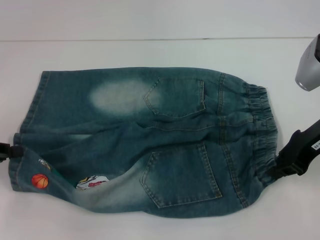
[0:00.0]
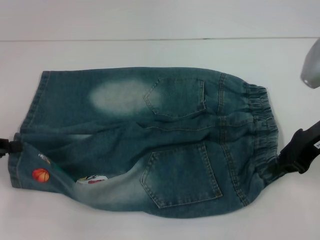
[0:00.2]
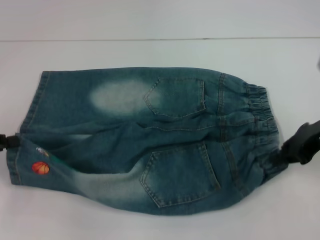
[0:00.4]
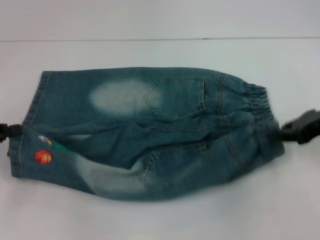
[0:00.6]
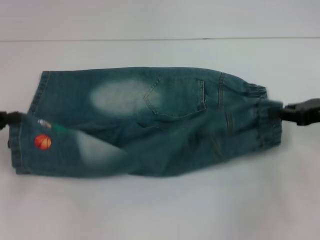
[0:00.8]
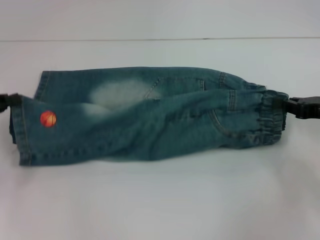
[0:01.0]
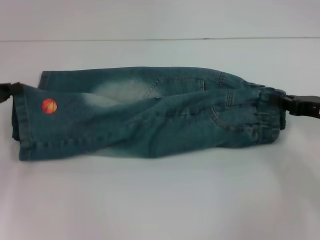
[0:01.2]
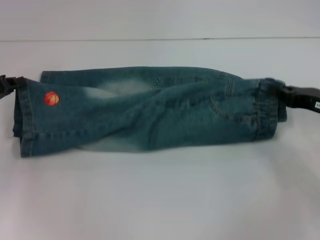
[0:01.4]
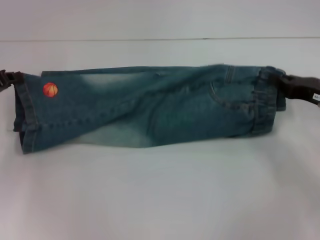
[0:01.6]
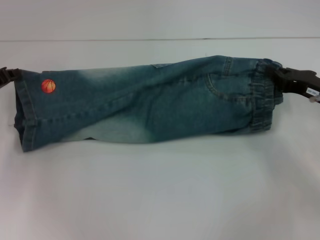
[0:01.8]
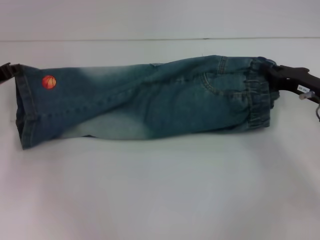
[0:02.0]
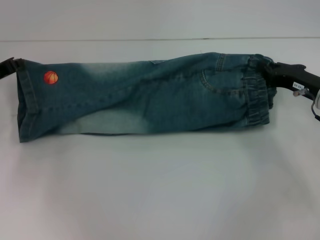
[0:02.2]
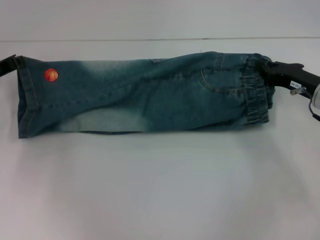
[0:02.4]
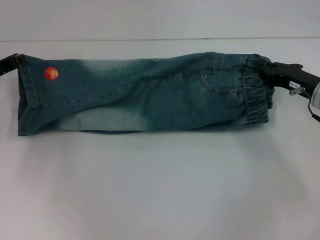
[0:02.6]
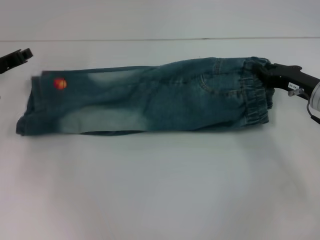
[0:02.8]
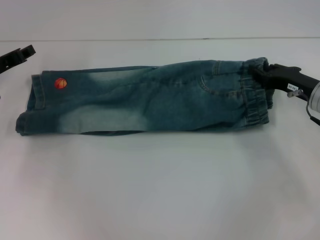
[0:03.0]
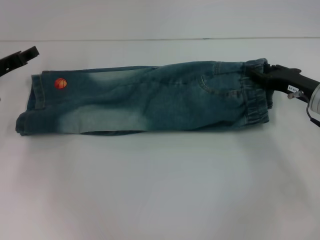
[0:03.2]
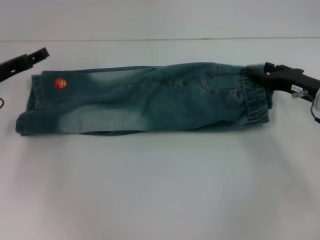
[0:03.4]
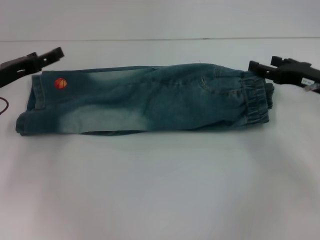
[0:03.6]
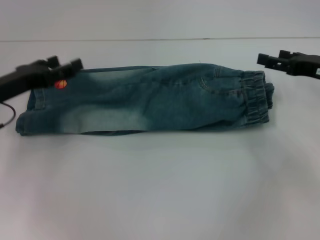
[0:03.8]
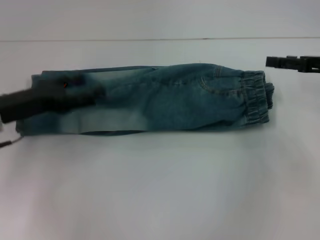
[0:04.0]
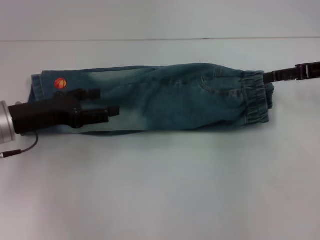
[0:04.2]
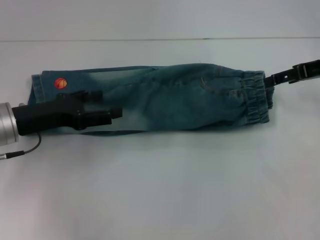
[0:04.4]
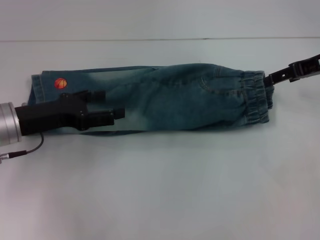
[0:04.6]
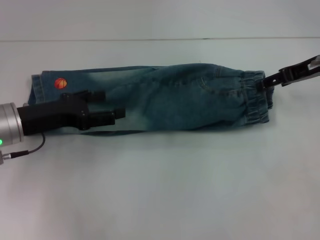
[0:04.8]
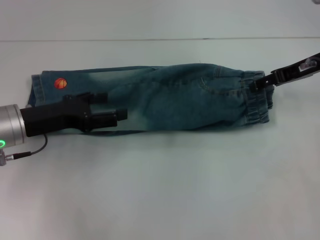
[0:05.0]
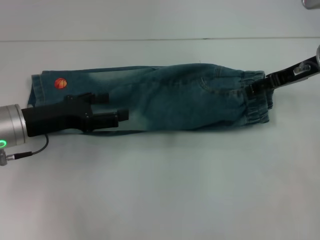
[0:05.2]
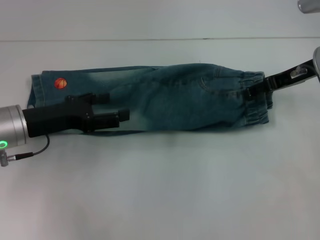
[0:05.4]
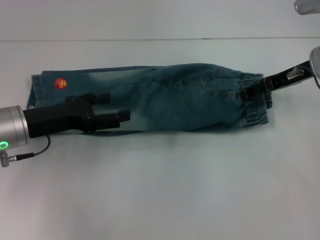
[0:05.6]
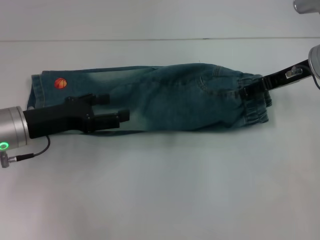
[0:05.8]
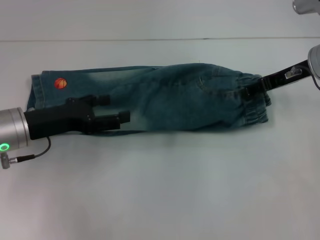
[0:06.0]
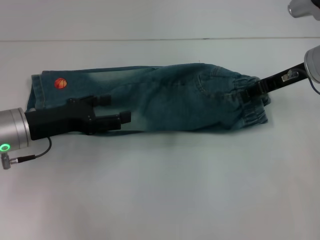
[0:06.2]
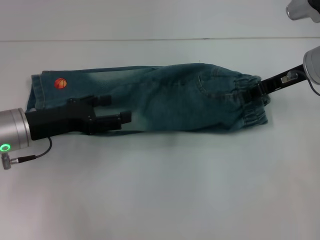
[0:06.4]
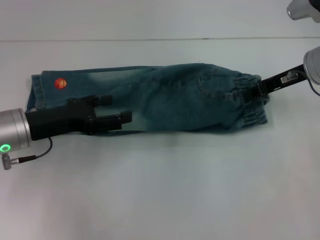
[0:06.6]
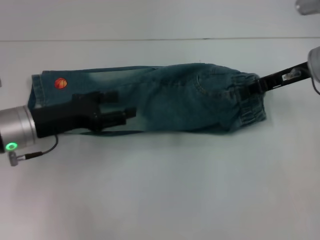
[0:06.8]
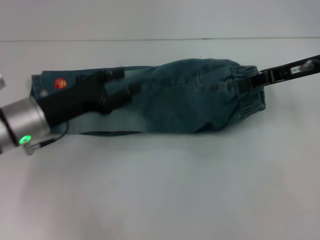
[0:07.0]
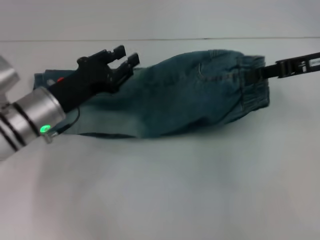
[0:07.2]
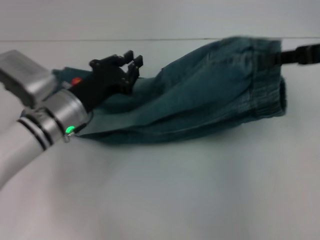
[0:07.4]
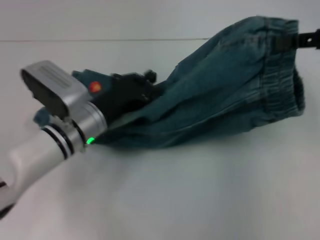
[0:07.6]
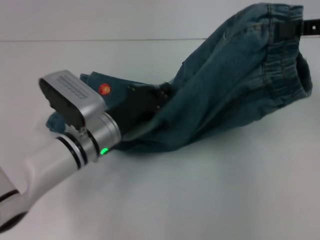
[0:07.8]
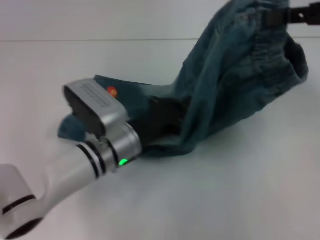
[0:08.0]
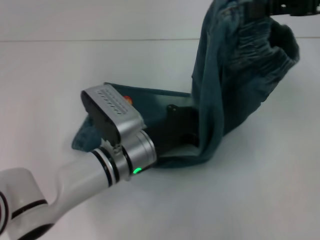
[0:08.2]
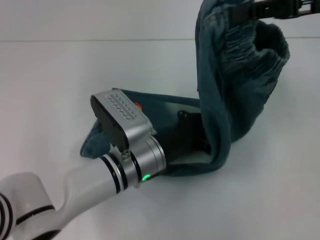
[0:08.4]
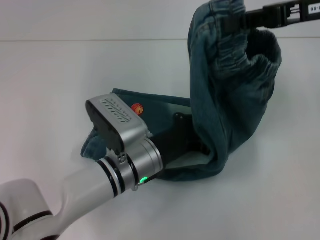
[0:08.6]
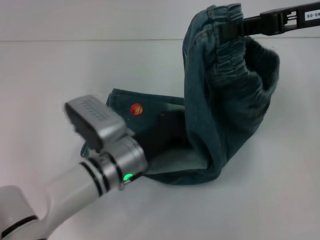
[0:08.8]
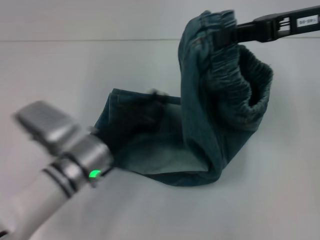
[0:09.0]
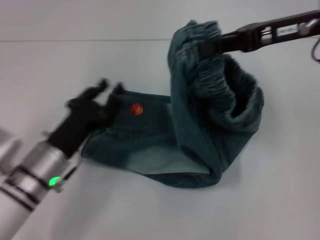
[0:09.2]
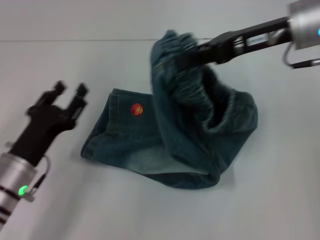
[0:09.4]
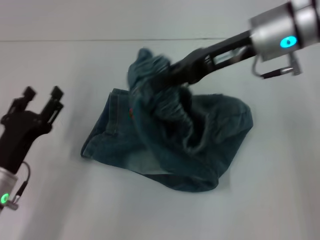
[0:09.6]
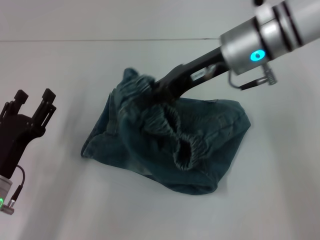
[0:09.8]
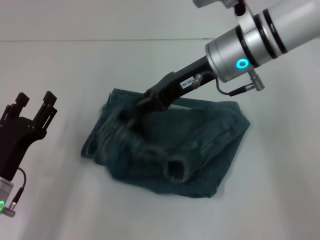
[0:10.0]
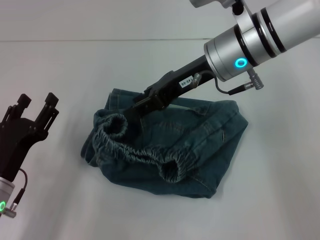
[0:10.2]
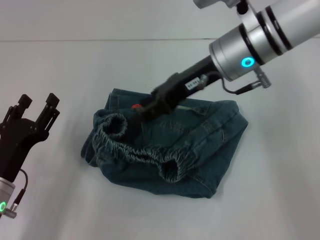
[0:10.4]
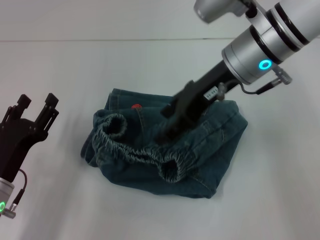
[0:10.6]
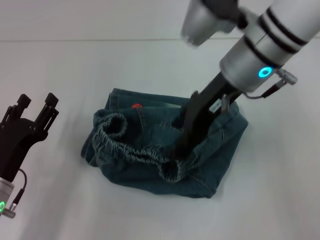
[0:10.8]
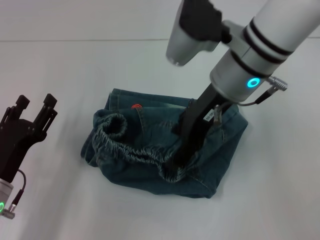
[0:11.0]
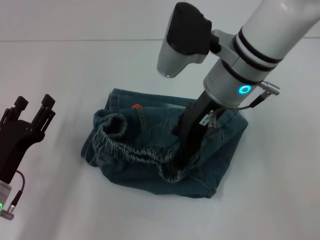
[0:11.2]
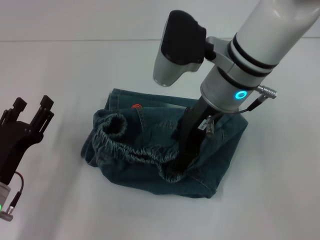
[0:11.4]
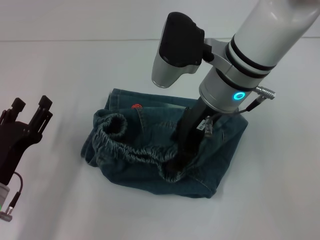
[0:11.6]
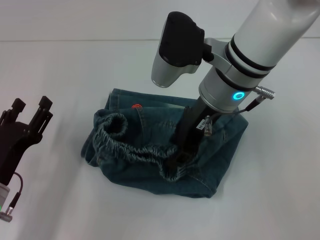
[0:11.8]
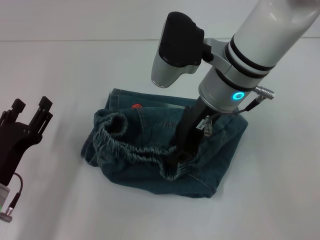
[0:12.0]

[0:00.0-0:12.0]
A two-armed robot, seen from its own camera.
Step, 0.0 to 2.8 s: Fold upward with your left hand.
Step, 3.0 to 3.4 s: Fold upward with your right hand.
Step, 3.6 to 6.6 s: Grab the waistband with your right hand.
Step, 6.8 to 8.6 s: Press the middle of the pants with your left hand.
Step, 8.8 to 10.4 s: Fold to the left with your right hand.
0.0 to 1.6 s: The right gripper heads downward and to the right, covering some 10 cm, while the left gripper goes some 10 cm forward.
1.6 to 3.0 s: The left gripper ends up about 5 cm from where it was.
3.0 to 4.4 s: The right gripper shifts approximately 10 cm upward, and opens its fingers; the left gripper travels backward and to the right by some 10 cm, and opens.
4.4 to 6.0 s: The right gripper moves to the left, approximately 5 cm.
6.0 to 7.6 s: The right gripper travels upward, backward and to the right by roughly 15 cm, and closes up. The left gripper heads to the right, covering roughly 10 cm, and closes.
7.6 to 9.0 s: The right gripper moves to the left, some 5 cm. Meanwhile the left gripper moves backward, approximately 5 cm, and goes to the right and returns, roughly 10 cm each way.
9.0 to 10.4 s: The right gripper goes some 15 cm to the left, and opens. The left gripper heads to the left and backward, covering about 15 cm, and opens up.
10.4 to 12.0 s: The right gripper opens, then closes again.

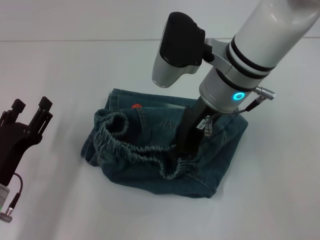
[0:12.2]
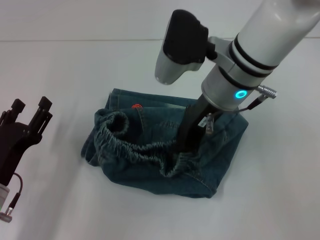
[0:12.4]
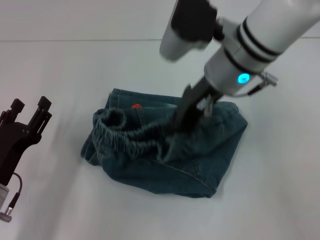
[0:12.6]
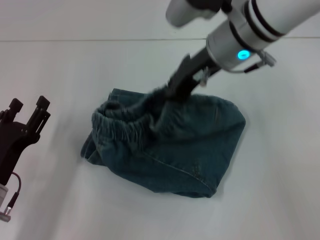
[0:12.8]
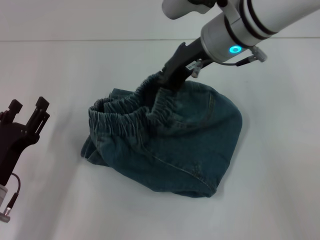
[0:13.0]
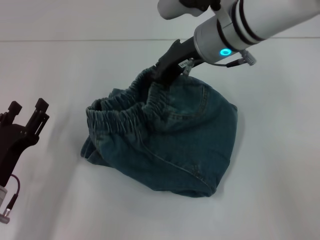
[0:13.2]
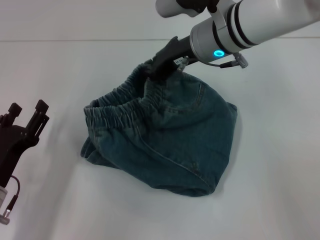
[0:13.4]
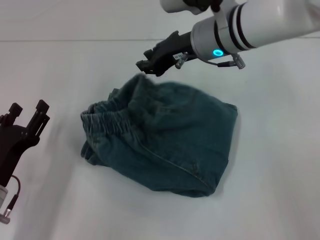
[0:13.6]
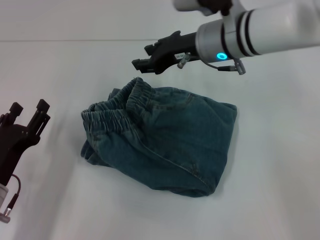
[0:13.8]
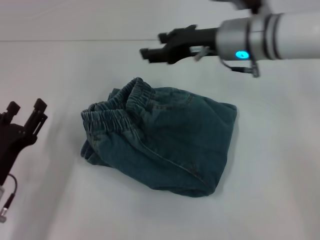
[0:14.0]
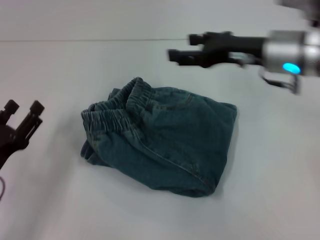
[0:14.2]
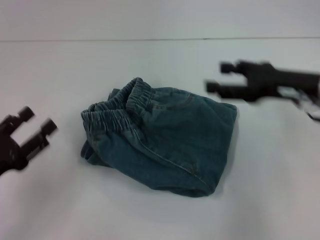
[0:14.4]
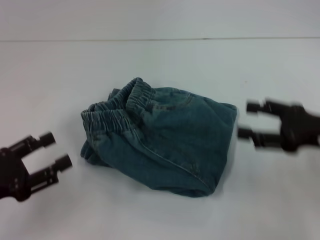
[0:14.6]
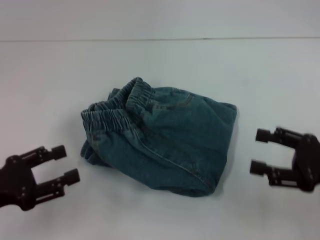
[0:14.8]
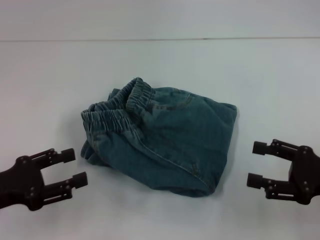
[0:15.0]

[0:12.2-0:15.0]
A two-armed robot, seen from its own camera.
Step, 12.2 to 14.0 s: Adjust the pants with your right hand.
12.2 to 13.6 s: The right gripper moves forward, some 5 cm.
13.6 to 15.0 s: The right gripper is displaced to the right, backward and downward by some 30 cm, and opens up, while the left gripper travels upward by roughly 5 cm.

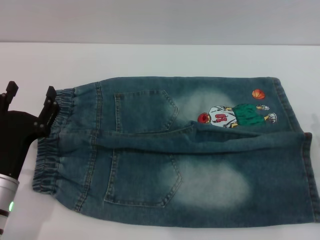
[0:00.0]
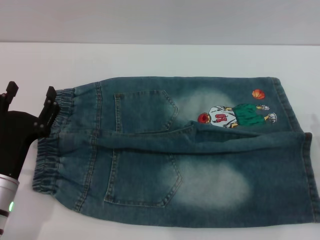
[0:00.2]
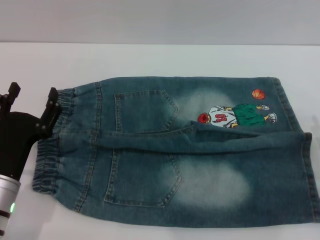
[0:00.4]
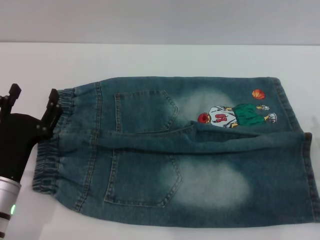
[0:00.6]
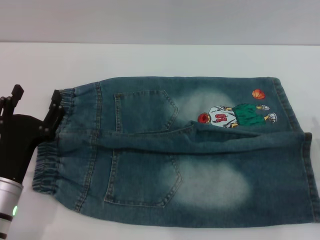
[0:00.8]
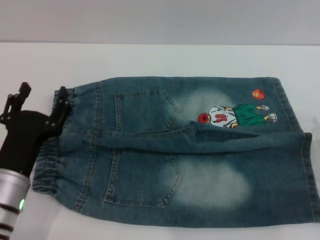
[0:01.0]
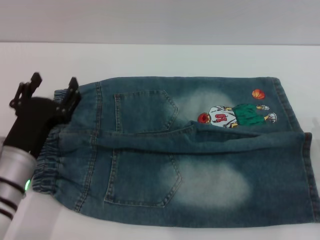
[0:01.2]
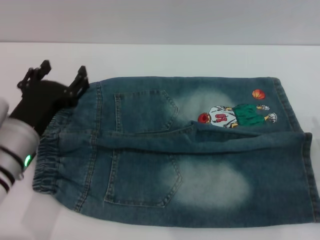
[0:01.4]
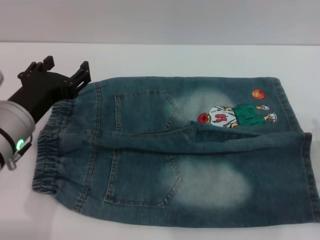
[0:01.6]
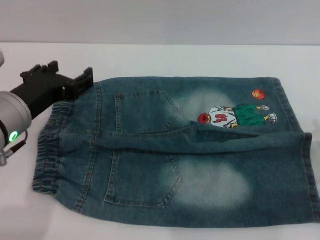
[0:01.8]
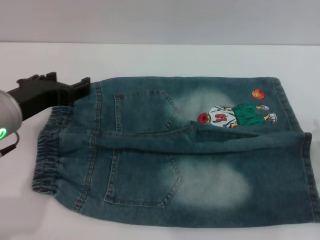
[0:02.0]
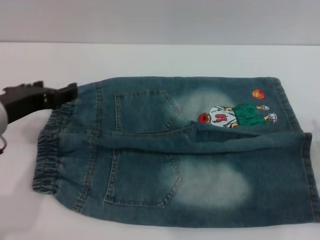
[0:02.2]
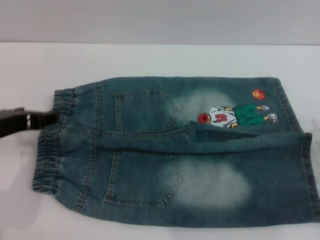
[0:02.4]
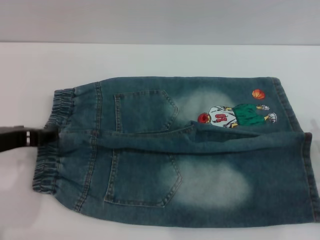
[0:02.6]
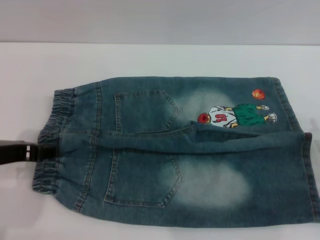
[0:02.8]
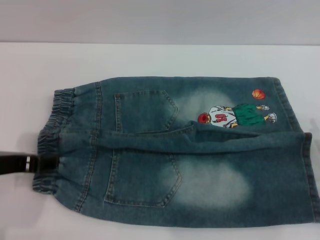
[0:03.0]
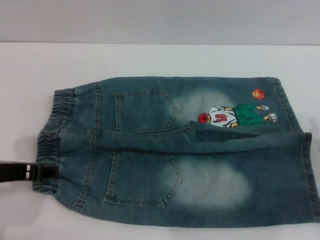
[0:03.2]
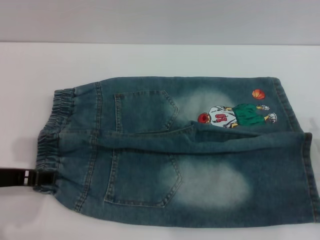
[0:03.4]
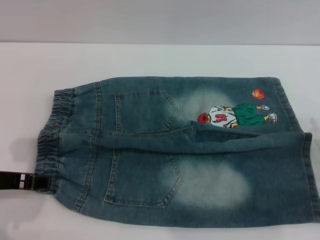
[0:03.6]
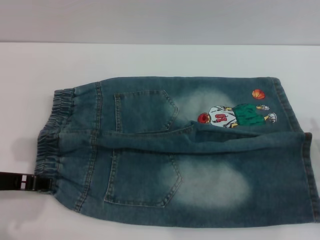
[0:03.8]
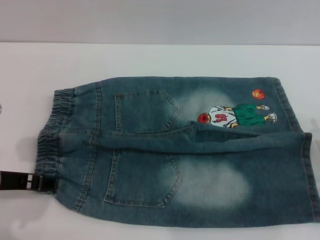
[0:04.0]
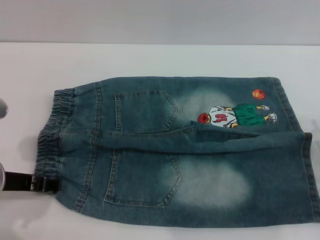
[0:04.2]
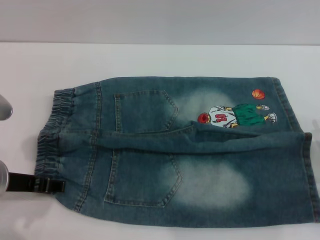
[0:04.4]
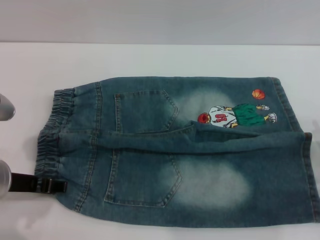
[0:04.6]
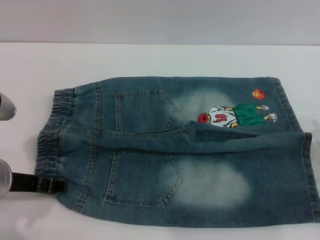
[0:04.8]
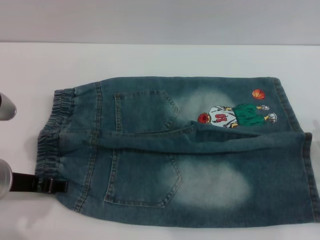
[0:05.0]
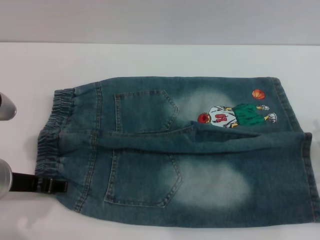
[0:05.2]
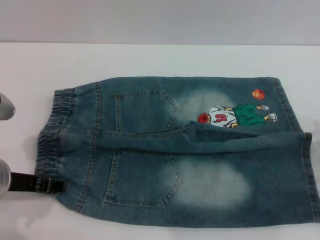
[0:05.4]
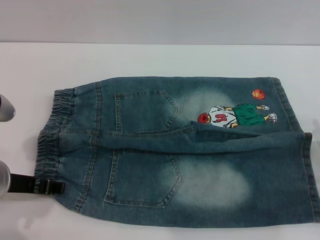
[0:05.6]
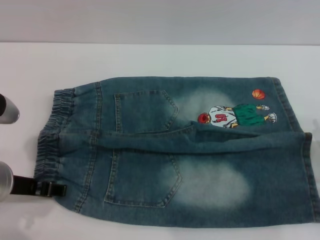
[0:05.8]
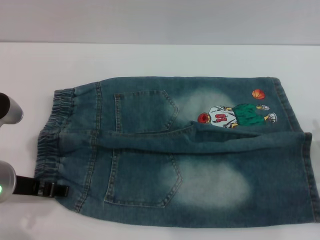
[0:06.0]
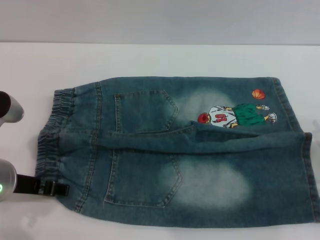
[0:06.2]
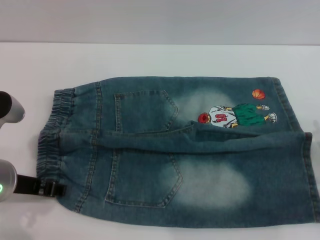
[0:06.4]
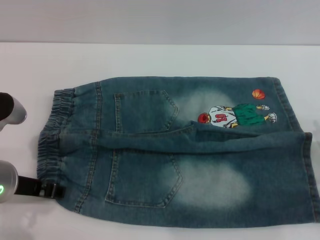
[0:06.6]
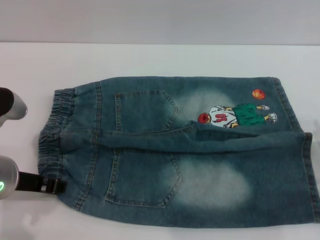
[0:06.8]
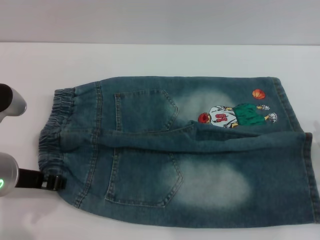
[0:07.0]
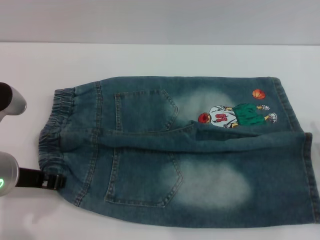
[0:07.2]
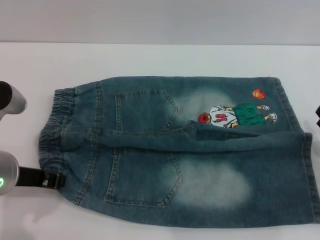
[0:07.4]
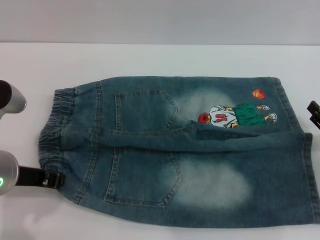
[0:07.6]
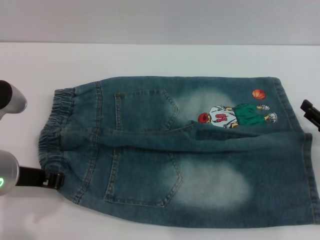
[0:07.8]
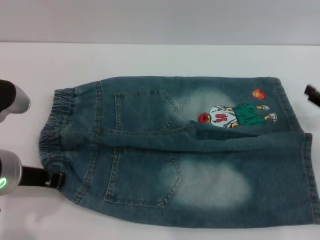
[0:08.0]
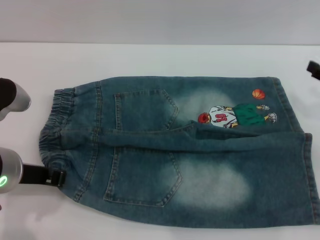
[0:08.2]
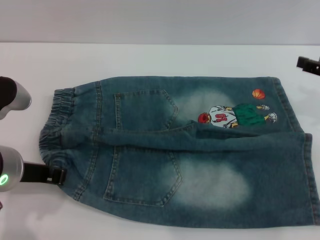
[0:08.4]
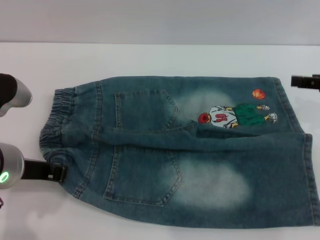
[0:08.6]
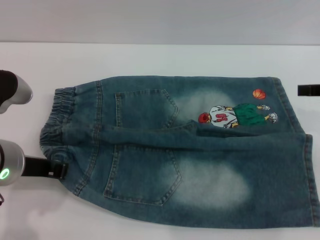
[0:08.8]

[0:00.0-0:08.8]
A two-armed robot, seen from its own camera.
0.0 to 1.4 s: The left gripper moves upward, some 5 cm.
1.4 to 3.0 s: The left gripper shifts approximately 5 cm upward.
3.0 to 4.4 s: There are only small adjustments of the grippers.
4.4 to 5.8 s: Both grippers stay about where they are.
5.8 to 7.4 s: The left gripper closes up.
7.4 to 8.8 s: The right gripper moves upward and forward, approximately 20 cm.
